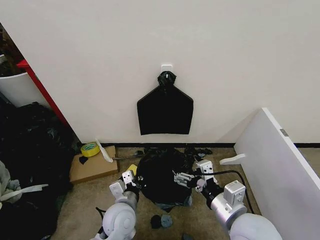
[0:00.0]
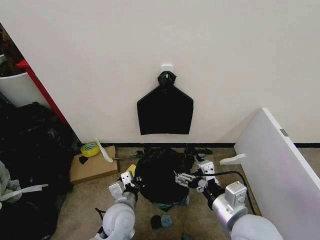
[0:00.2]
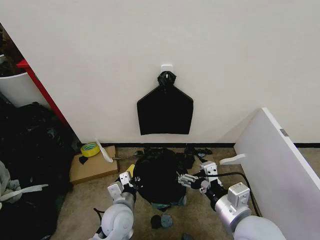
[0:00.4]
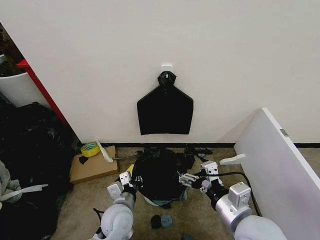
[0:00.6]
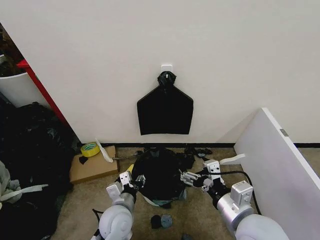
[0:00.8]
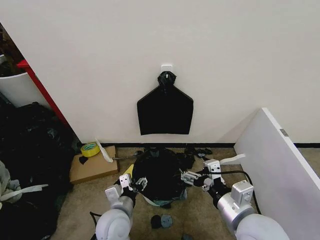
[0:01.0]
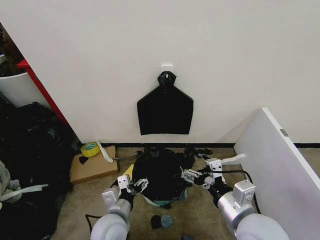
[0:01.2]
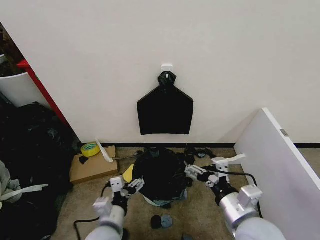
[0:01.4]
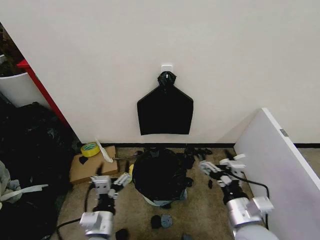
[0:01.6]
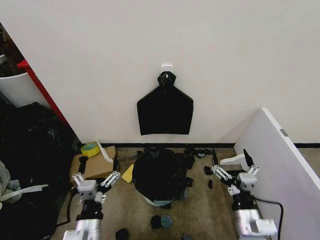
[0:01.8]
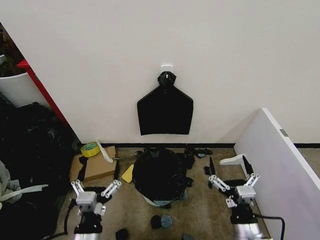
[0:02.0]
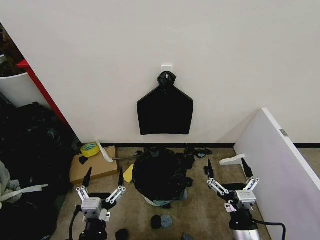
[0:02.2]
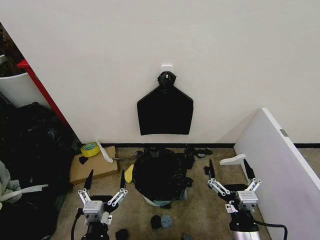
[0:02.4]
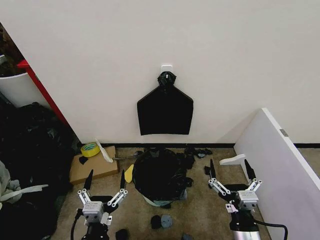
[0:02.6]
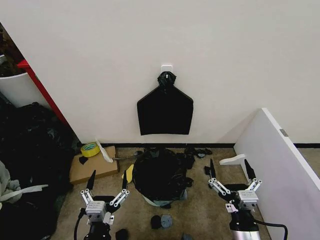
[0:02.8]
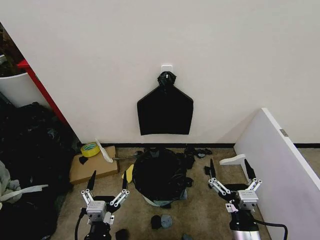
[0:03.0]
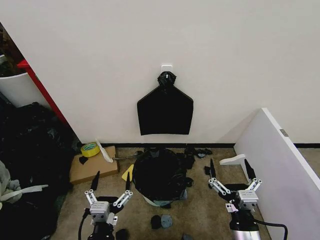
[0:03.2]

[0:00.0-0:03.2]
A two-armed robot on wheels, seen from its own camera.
Task of the whole recording: Place the garbage bag over the trash bin.
0:00.0 to 0:01.6: The right gripper travels downward by approximately 5 cm. Meanwhile the left gripper heads backward, covering approximately 10 cm, and opens.
0:01.6 to 0:03.2: The grippers both shift backward by about 5 cm.

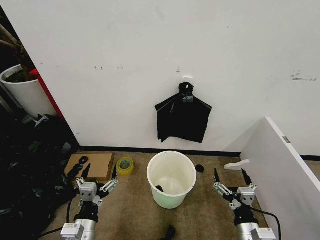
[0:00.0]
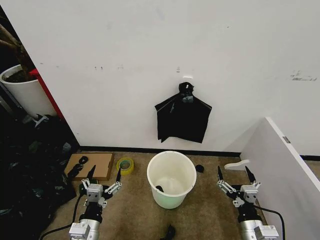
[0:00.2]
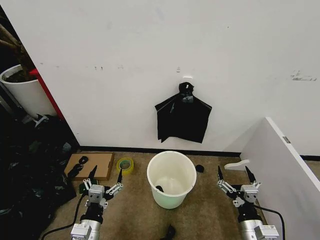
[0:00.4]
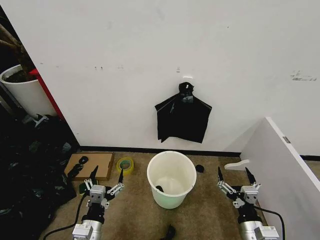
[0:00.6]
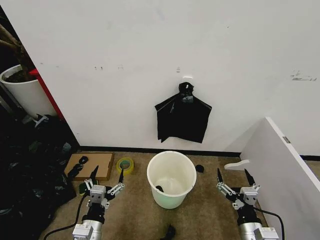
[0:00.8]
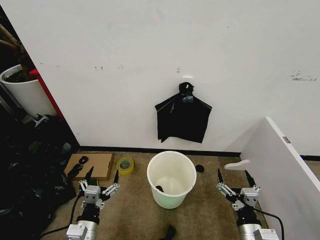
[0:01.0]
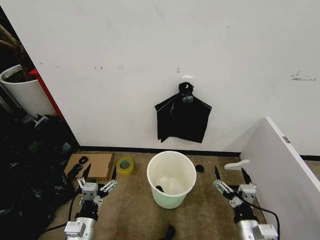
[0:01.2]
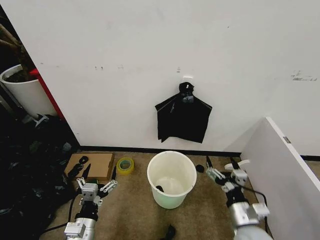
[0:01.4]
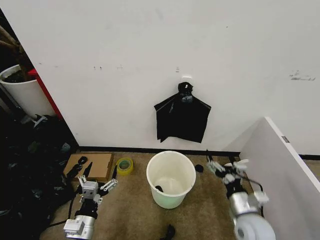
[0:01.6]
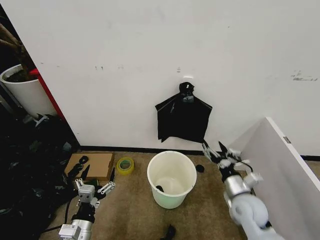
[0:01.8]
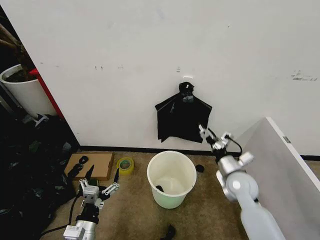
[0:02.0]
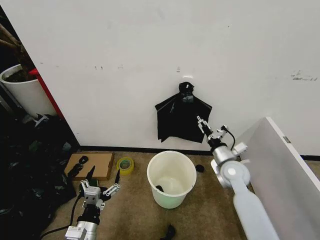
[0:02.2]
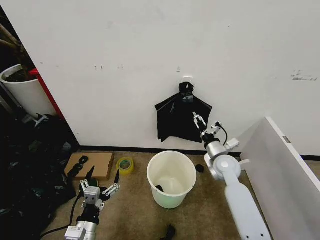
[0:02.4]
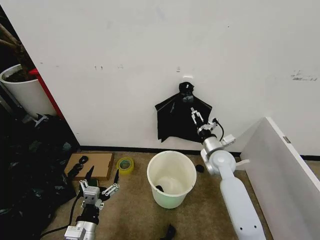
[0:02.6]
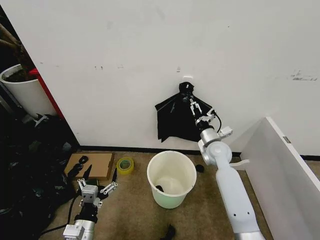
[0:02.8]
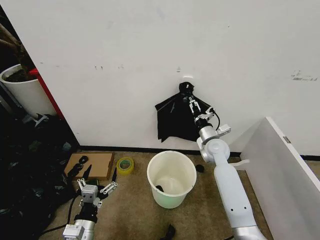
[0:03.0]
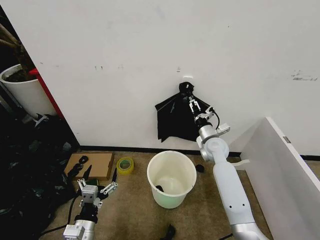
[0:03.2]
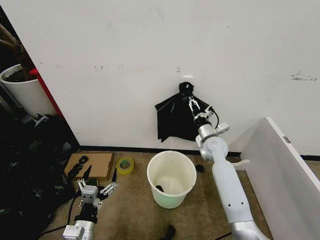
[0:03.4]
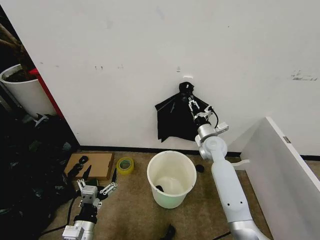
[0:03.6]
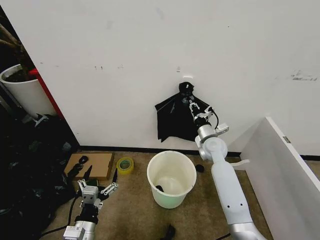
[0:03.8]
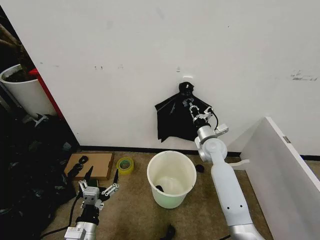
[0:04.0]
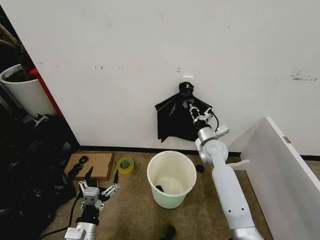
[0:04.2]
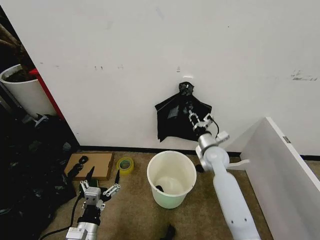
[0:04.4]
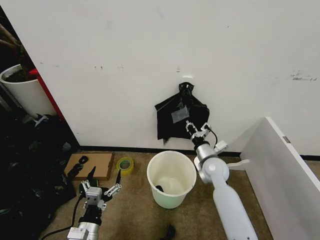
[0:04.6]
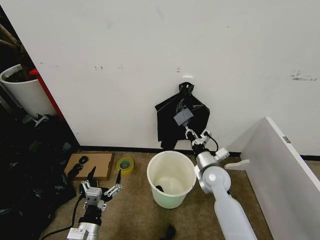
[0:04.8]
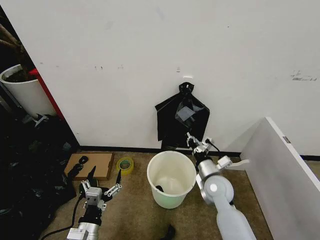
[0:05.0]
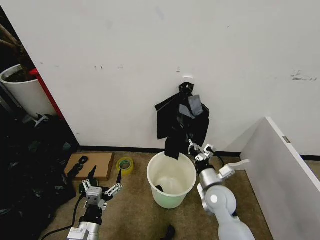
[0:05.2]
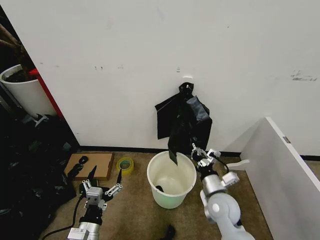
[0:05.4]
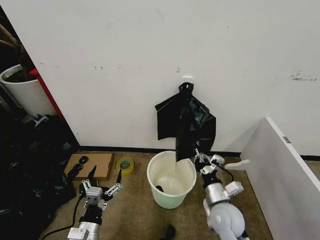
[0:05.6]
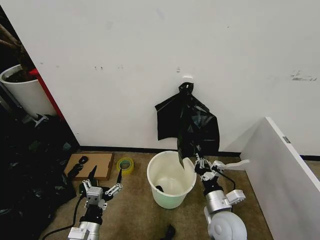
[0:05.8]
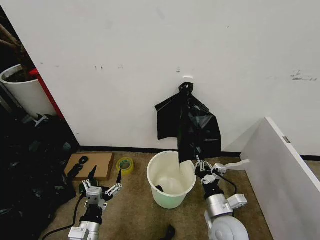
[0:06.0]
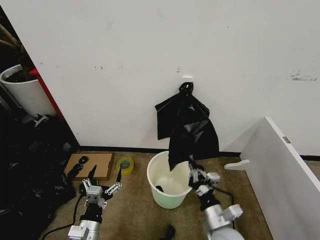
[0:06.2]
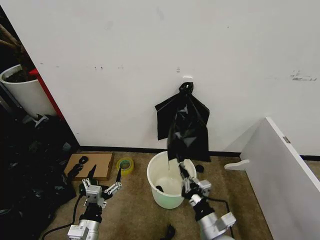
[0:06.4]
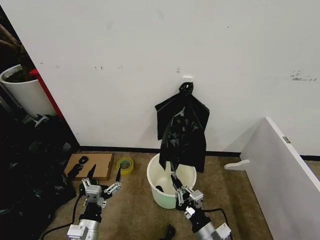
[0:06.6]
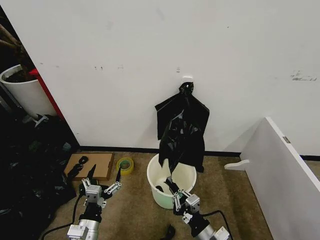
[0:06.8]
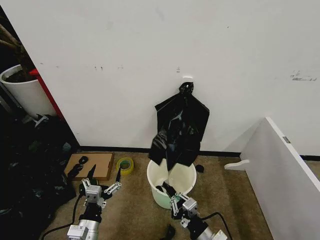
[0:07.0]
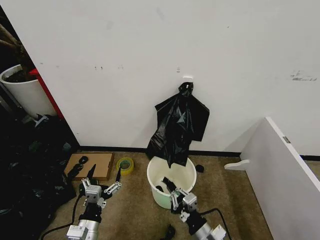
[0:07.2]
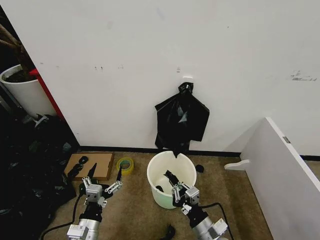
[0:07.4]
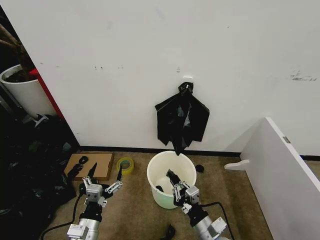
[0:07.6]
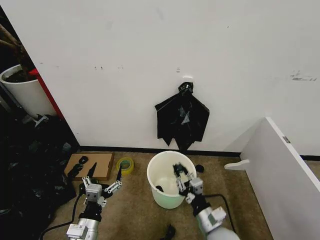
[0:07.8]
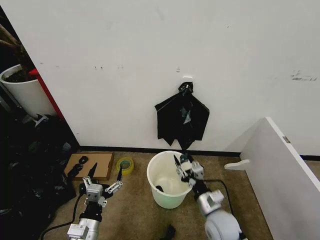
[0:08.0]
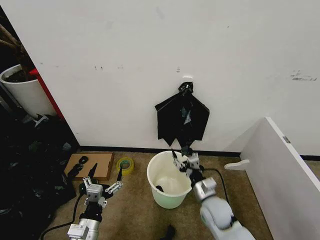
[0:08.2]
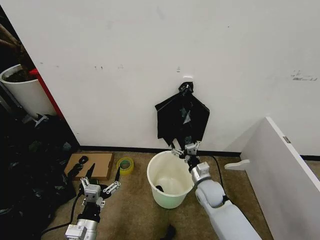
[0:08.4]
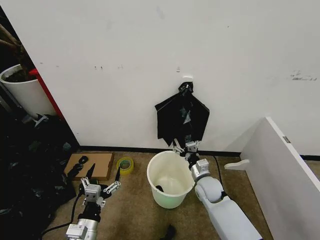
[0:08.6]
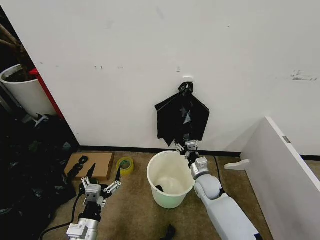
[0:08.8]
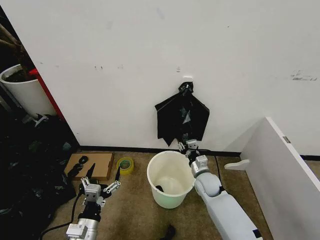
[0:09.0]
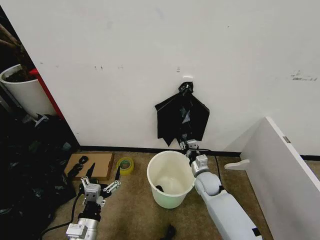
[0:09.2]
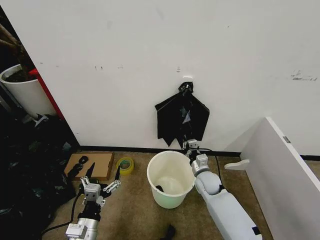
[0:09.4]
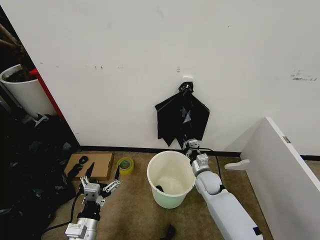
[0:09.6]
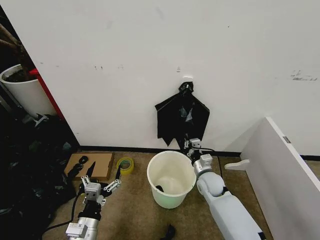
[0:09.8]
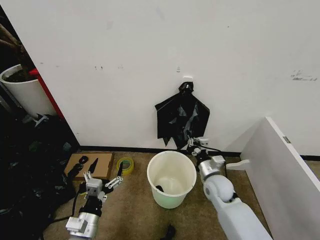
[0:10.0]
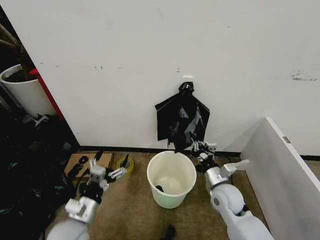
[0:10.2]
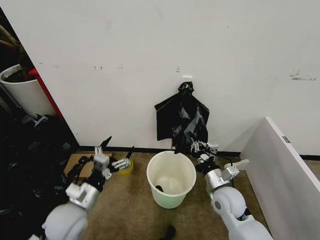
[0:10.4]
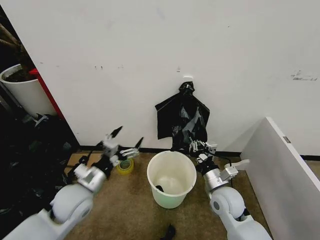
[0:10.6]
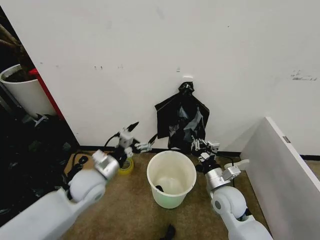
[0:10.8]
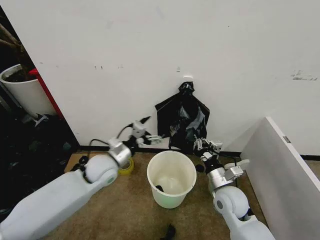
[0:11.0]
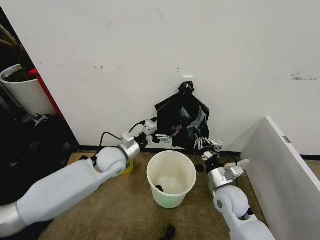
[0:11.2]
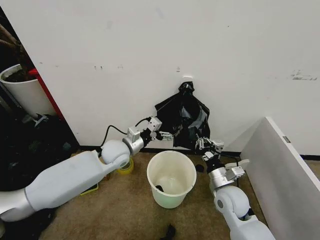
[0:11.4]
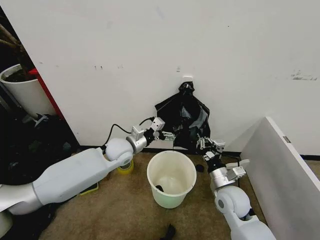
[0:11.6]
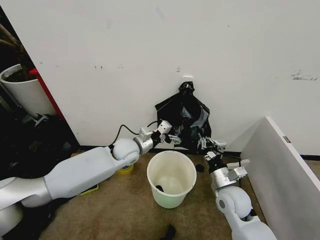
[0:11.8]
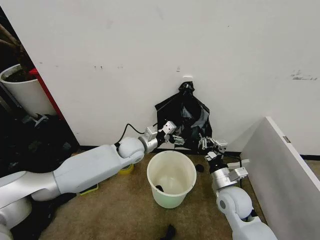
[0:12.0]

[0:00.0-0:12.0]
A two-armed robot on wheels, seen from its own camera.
Task of the whole recording: Place the garbage bag over the trash bin.
0:01.6 to 0:03.0: The right gripper is displaced forward by roughly 25 cm.
0:03.0 to 0:04.4: The right gripper closes.
0:04.4 to 0:06.0: The right gripper heads backward, covering some 25 cm.
0:06.0 to 0:07.6: The right gripper shifts by approximately 5 cm.
0:07.6 to 0:09.0: The right gripper shifts about 20 cm forward, and opens its fingers.
0:09.0 to 0:10.4: The right gripper heads backward and upward, covering approximately 10 cm, and closes its fingers; the left gripper travels forward and upward by some 10 cm.
0:10.4 to 0:12.0: The left gripper travels forward and to the right by about 25 cm.

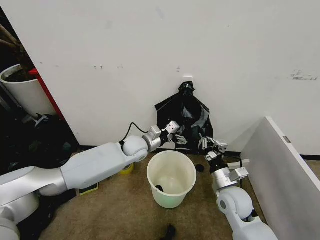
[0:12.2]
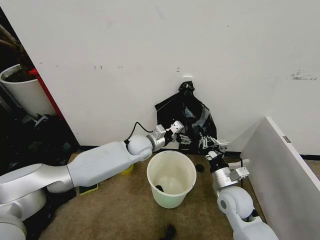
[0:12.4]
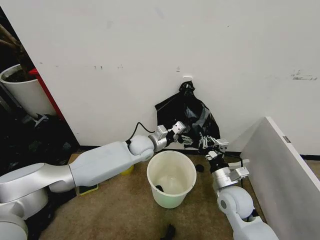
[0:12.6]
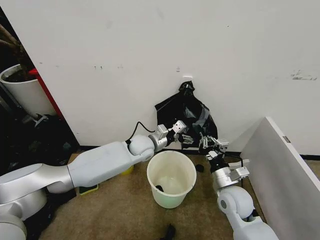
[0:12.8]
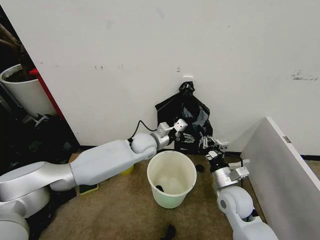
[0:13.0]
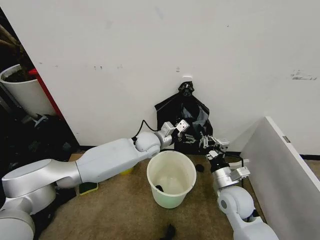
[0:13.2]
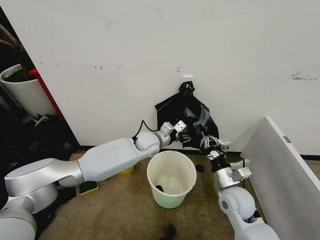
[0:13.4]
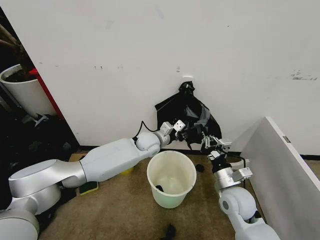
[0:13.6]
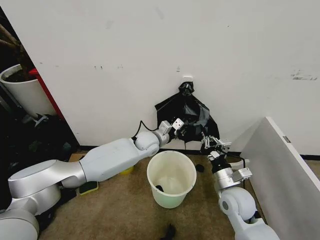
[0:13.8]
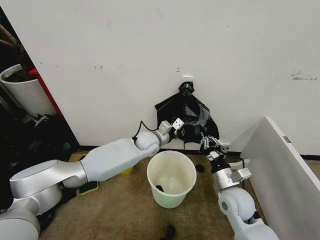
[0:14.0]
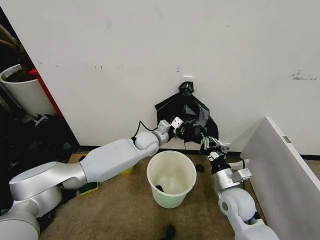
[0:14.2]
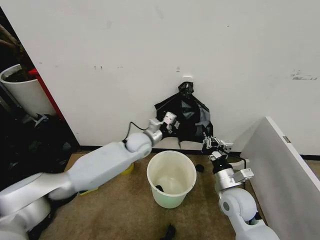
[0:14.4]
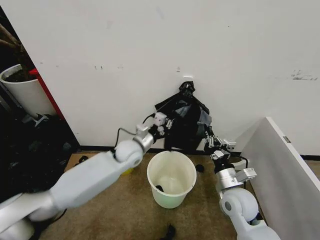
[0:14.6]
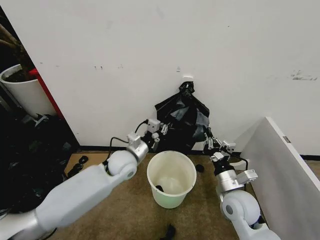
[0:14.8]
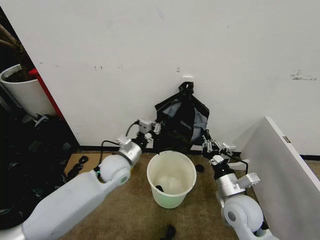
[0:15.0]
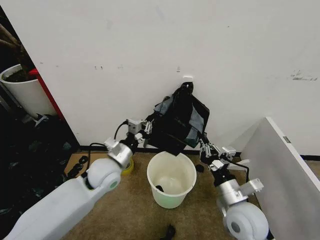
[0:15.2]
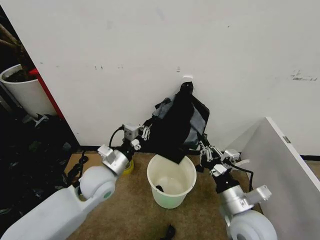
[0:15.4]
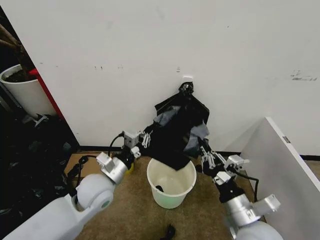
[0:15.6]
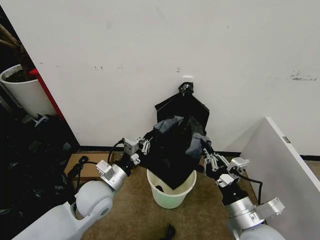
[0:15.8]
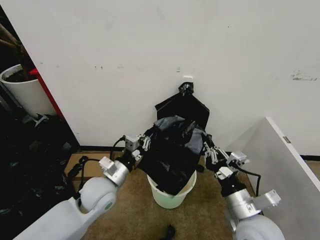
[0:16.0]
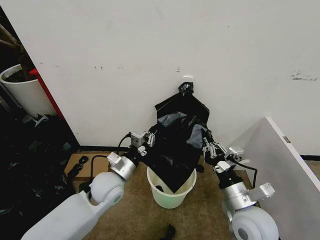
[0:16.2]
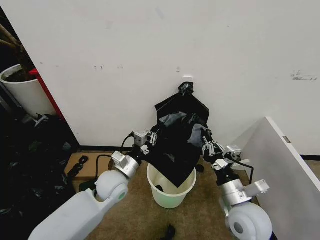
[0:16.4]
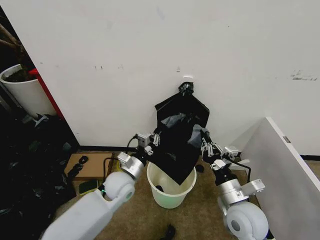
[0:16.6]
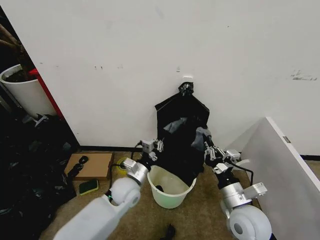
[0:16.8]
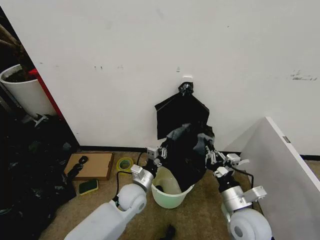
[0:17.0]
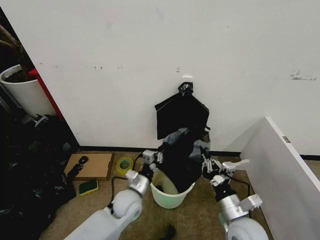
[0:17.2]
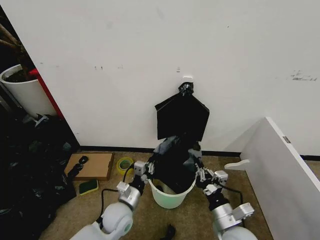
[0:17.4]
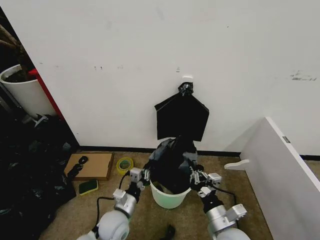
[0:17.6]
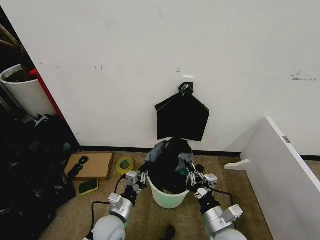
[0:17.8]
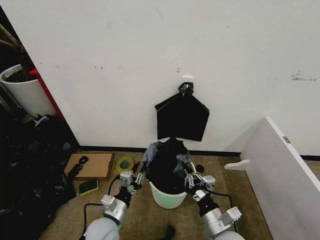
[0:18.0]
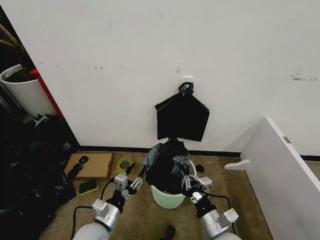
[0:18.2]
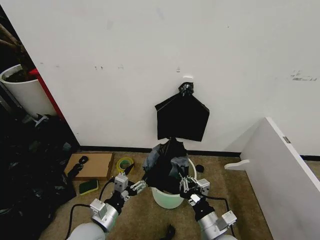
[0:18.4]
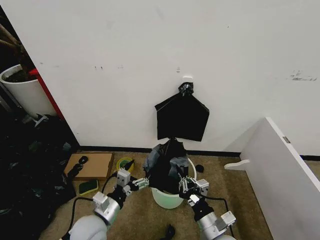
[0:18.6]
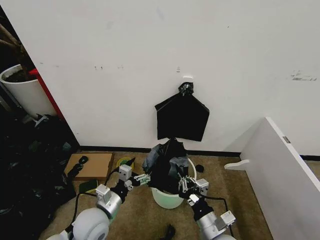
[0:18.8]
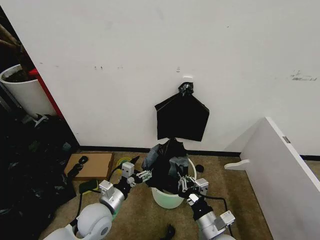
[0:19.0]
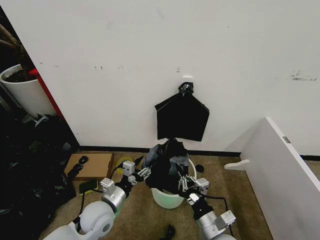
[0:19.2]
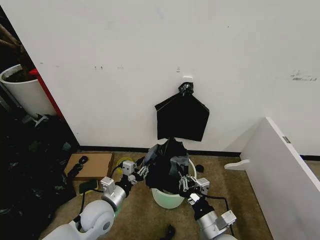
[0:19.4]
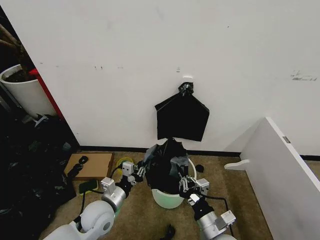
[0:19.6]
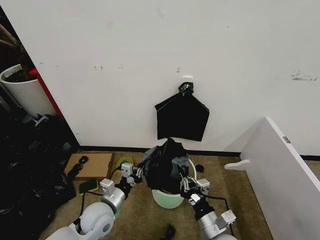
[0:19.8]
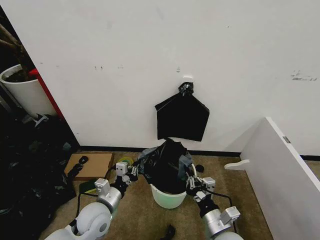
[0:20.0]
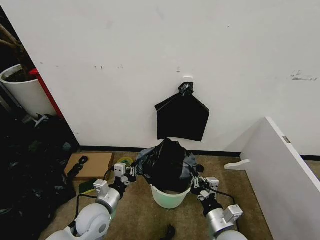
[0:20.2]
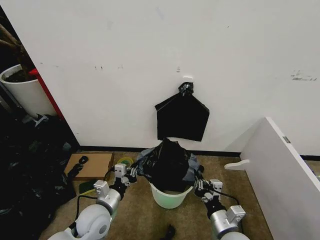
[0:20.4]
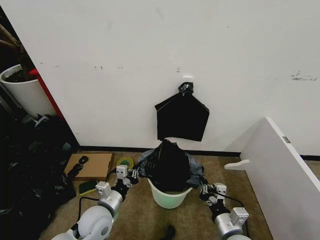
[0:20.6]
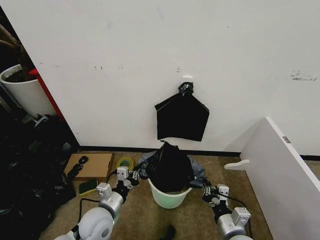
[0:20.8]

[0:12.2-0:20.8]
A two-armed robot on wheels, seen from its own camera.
Task of the whole recording: Place the garbage bag over the trash bin.
0:12.2 to 0:13.6: The left gripper changes place by about 5 cm, and closes up.
0:13.6 to 0:15.0: The left gripper heads backward and to the left, covering approximately 15 cm, and closes its fingers.
0:15.0 to 0:16.6: The right gripper travels backward and back again, about 10 cm each way.
0:16.6 to 0:18.0: The right gripper is displaced downward and backward by about 10 cm. Meanwhile the left gripper heads backward and downward, covering about 15 cm.
0:18.0 to 0:19.4: The left gripper shifts by about 5 cm, and opens and closes again.
0:19.4 to 0:20.8: The right gripper moves to the right, about 5 cm; the left gripper closes up.
